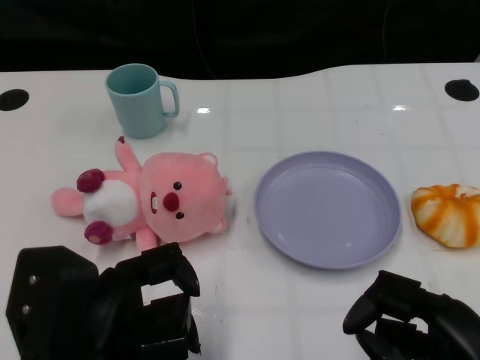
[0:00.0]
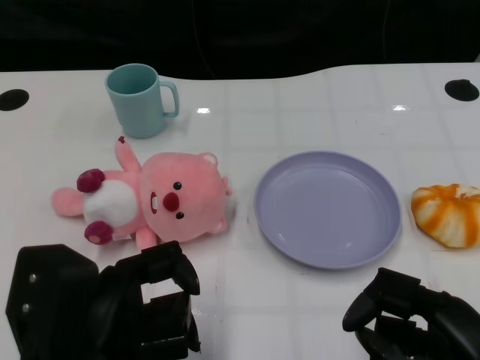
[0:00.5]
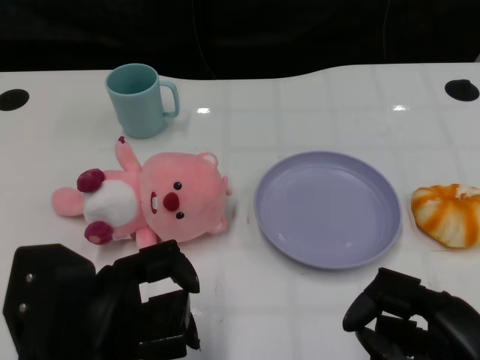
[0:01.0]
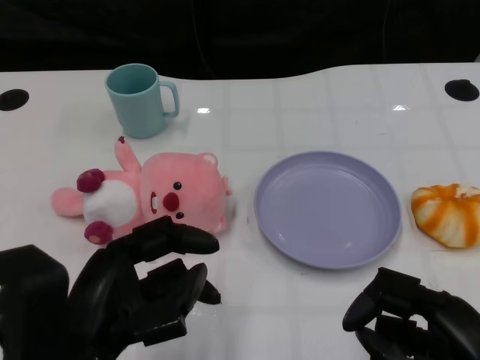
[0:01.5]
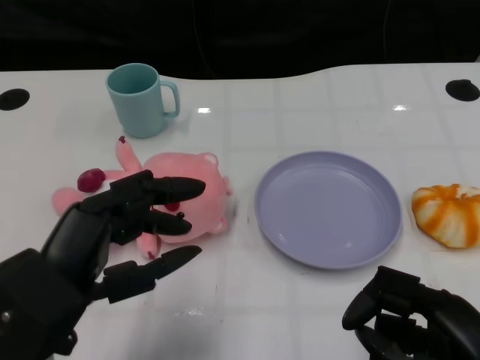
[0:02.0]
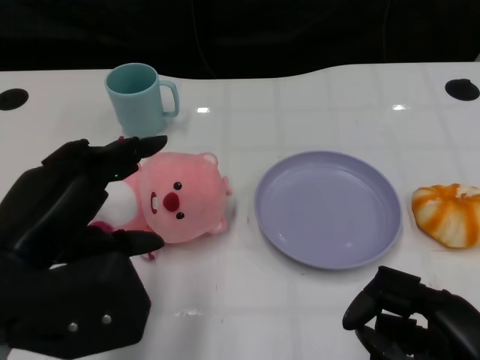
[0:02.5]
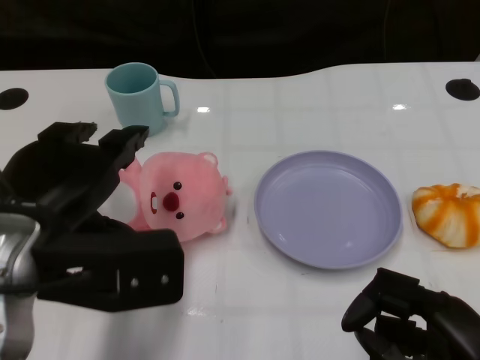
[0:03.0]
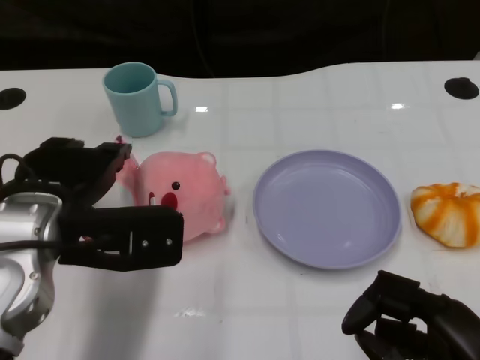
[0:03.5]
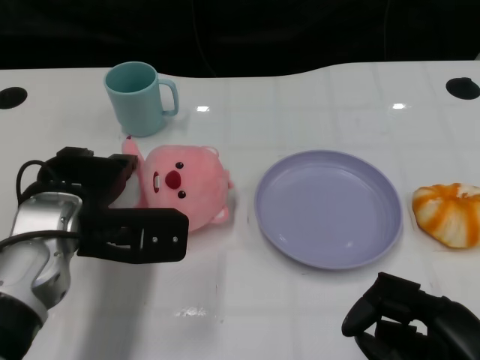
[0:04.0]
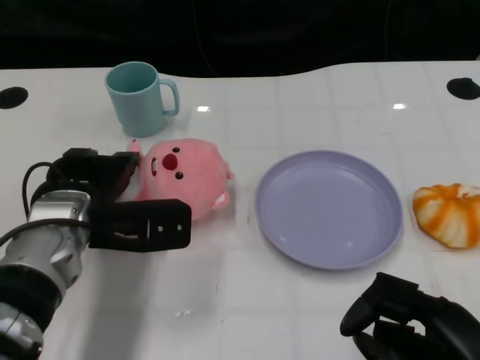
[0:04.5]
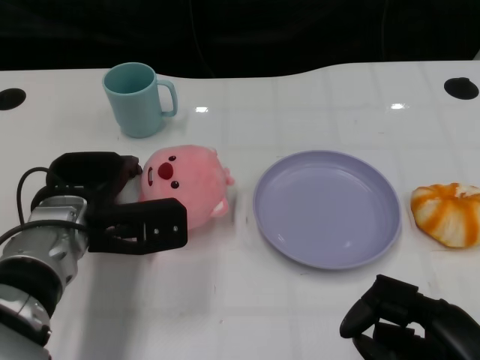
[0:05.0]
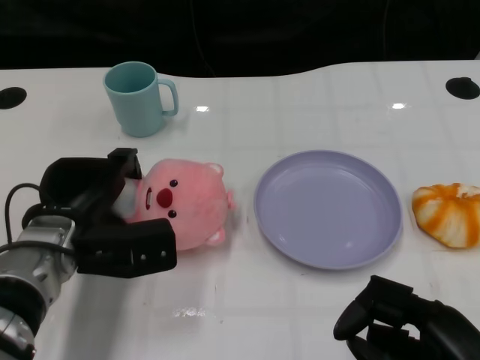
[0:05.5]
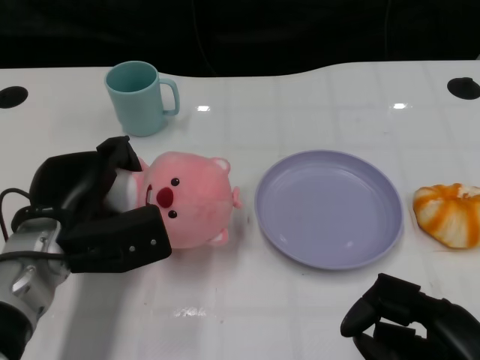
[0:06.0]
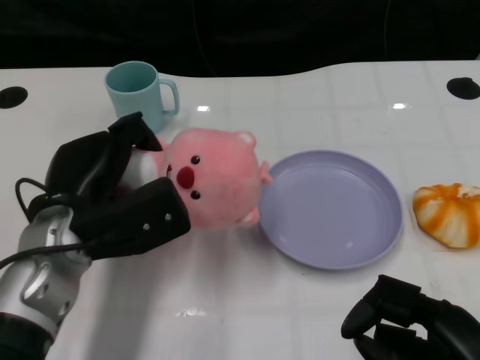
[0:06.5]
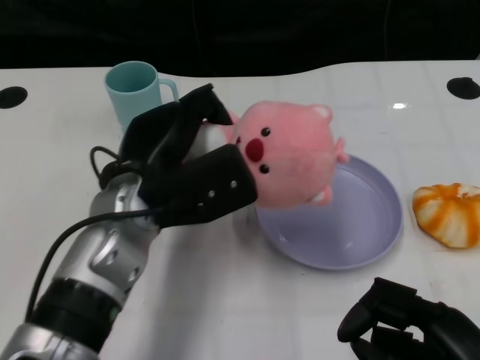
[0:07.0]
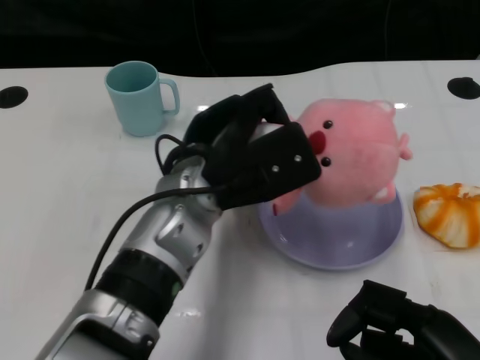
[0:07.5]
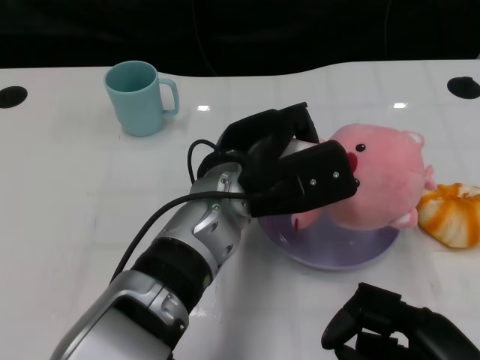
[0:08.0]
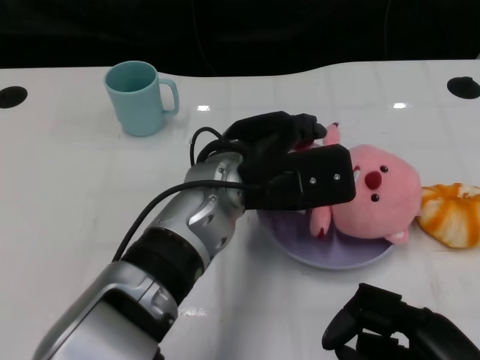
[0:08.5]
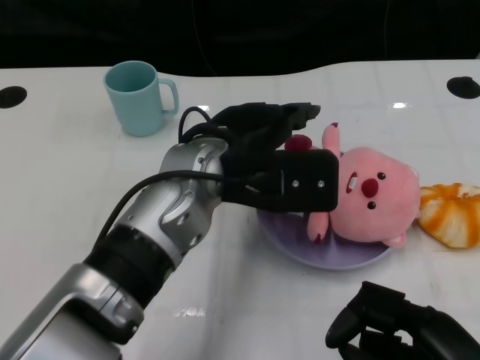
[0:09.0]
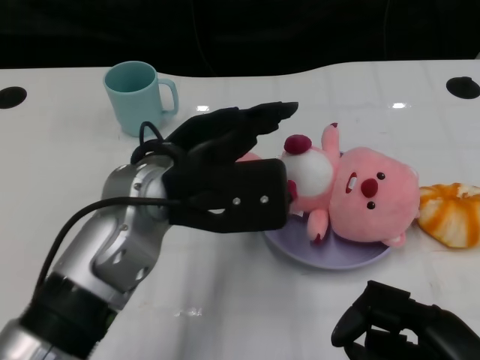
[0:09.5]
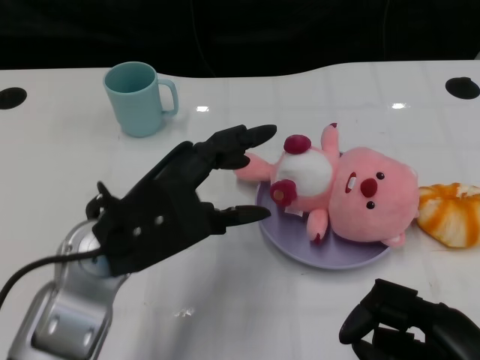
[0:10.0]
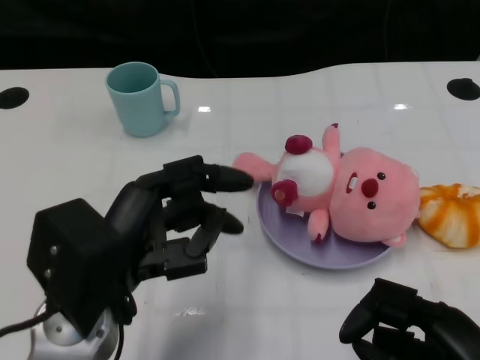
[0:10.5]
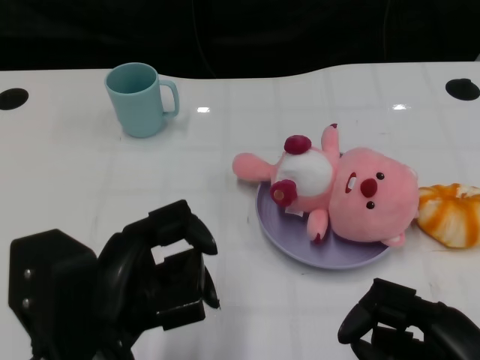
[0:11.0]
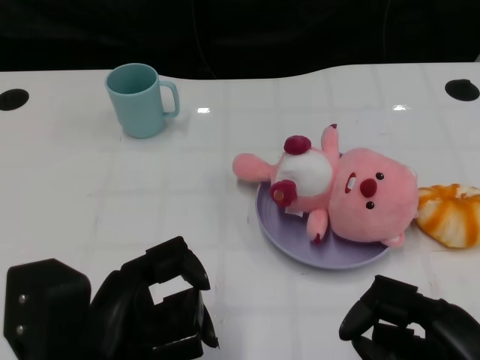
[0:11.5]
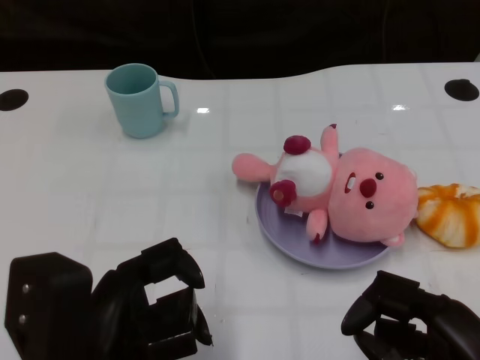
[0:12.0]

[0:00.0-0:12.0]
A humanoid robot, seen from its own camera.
Task of the whole recording: Pick up the doll on one side of the plate and place it into the plate.
Step, 0:01.0 to 0:05.5: Grasp the pink doll with the left gripper.
Step, 0:06.0 to 0:09.0: Place the pink doll into the plate with the left gripper.
0:02.0 to 0:04.0: The left hand shifts about 15 cm forward.
0:06.0 to 0:08.0: The left hand goes roughly 20 cm to the right.
0:08.0 to 0:10.0: The left hand moves to the left and backward, roughly 15 cm.
0:10.0 to 0:12.0: The left hand goes about 10 cm backward.

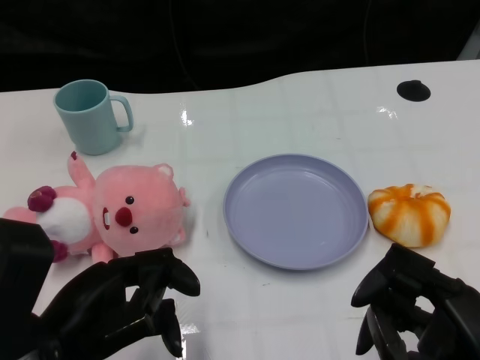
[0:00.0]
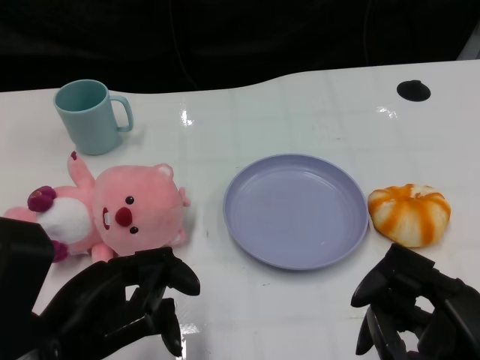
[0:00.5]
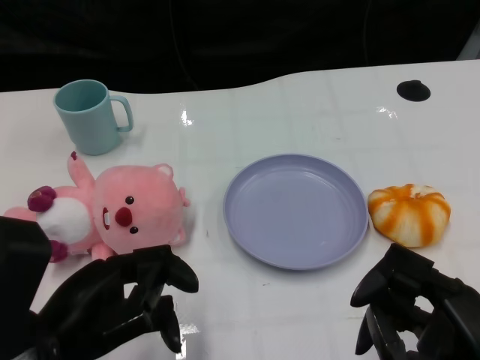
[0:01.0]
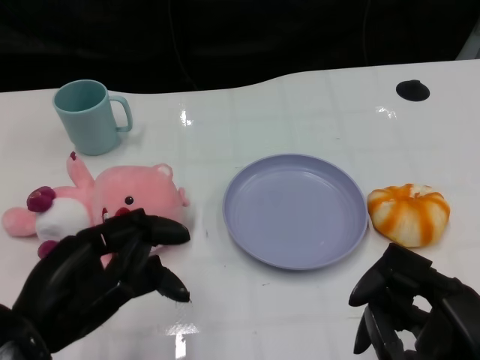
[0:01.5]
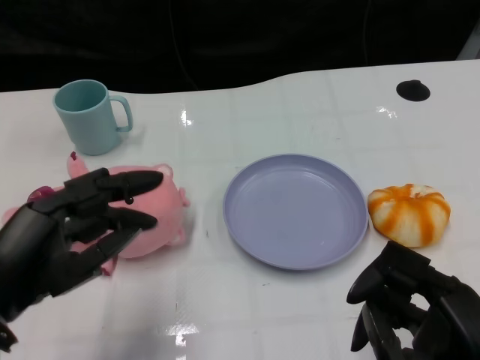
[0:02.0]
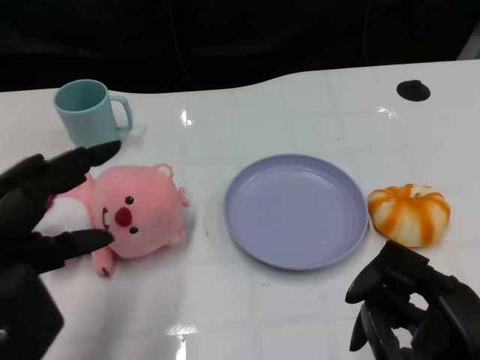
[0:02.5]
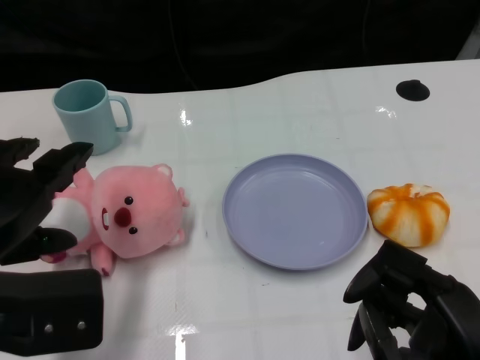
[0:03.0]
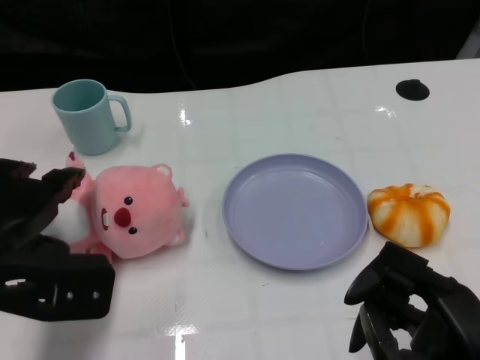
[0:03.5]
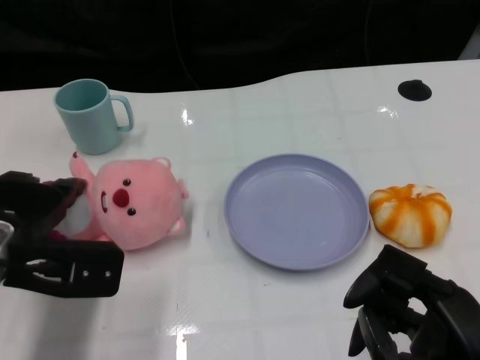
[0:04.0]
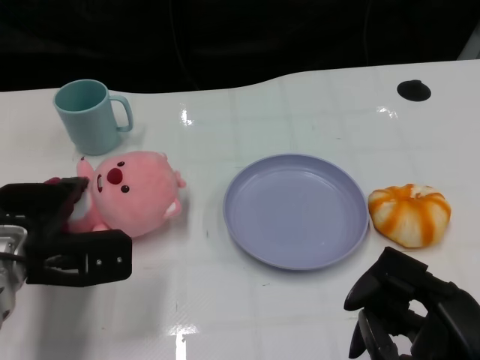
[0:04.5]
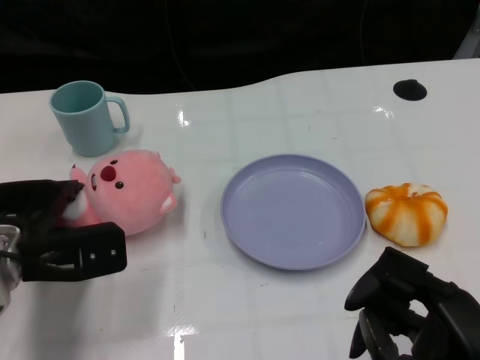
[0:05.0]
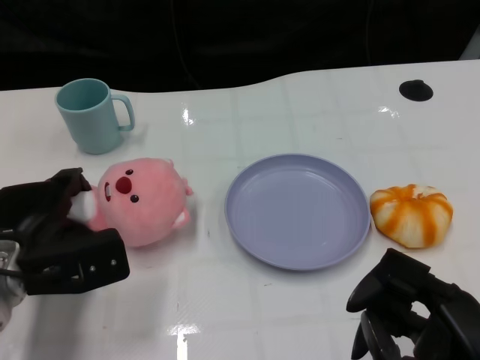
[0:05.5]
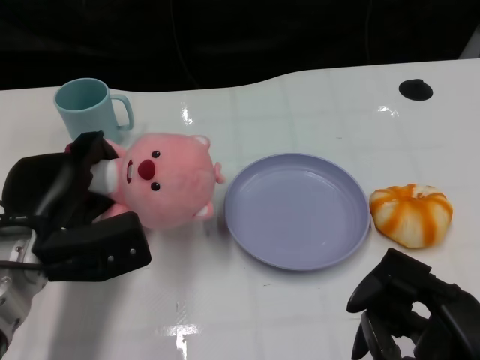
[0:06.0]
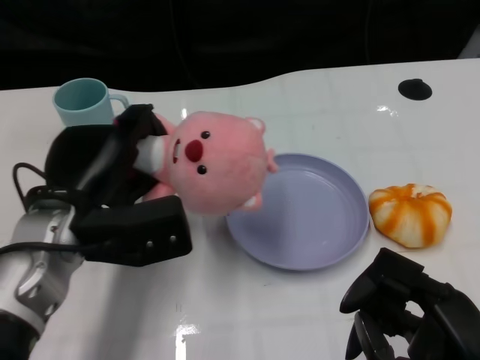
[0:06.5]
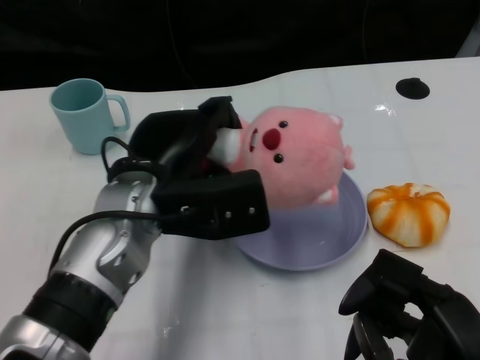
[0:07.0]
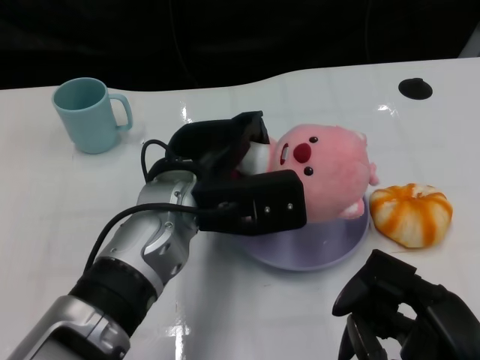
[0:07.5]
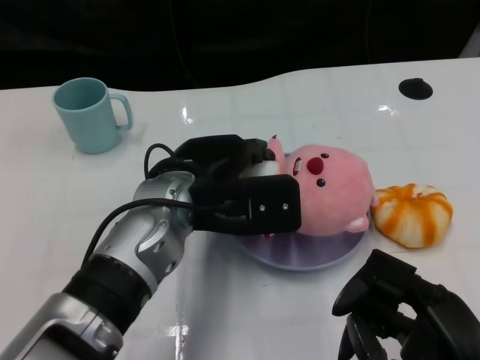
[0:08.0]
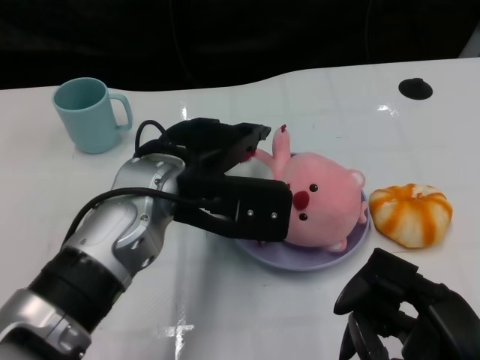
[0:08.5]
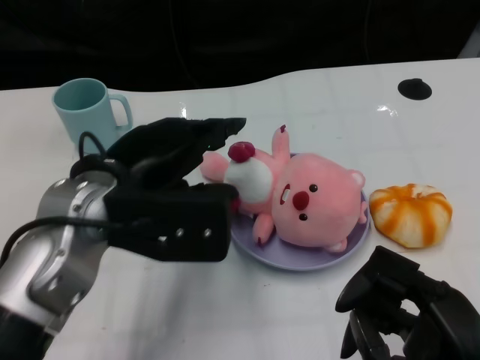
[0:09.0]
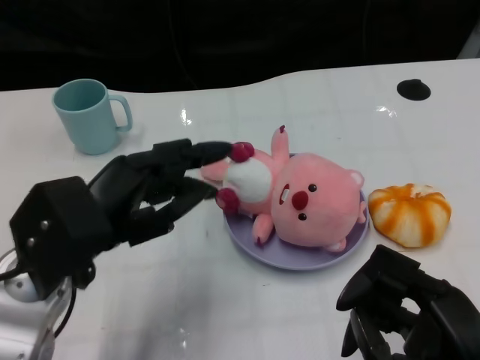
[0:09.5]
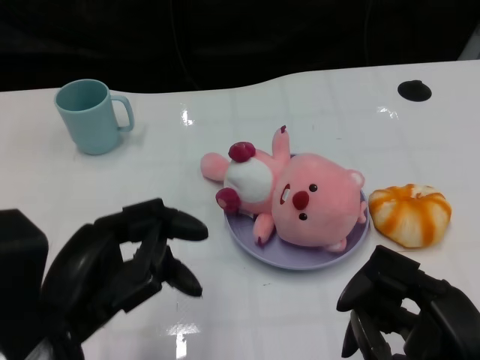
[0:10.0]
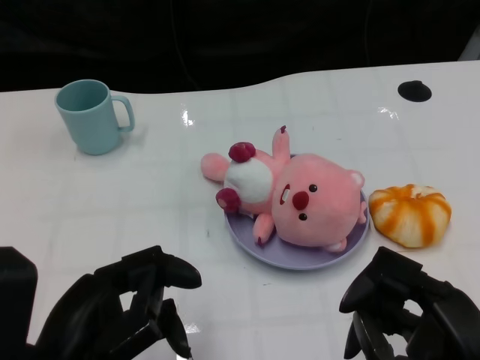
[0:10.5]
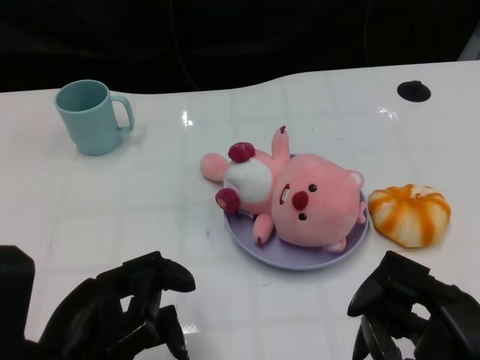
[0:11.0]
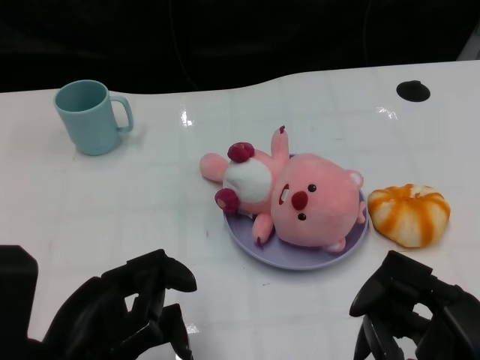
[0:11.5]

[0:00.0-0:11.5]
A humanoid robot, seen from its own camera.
Task of the whole recording: Pick up the doll on one side of the plate and place it into the plate.
Step, 0:01.0 to 0:05.5: Grasp the pink doll with the left gripper.
Step, 0:06.0 to 0:08.5: Place the pink doll into the plate with the left gripper.
0:02.0 to 0:04.0: The left hand goes some 10 cm forward.
0:06.0 to 0:07.5: The left hand is displaced to the right by roughly 15 cm.
0:07.5 to 0:09.5: The left hand is displaced to the left and backward by approximately 15 cm.
0:09.5 to 0:11.5: The left hand heads backward, covering some 10 cm.

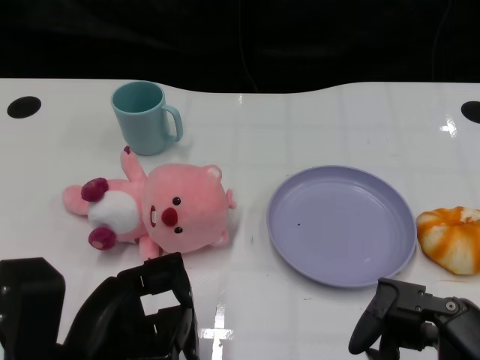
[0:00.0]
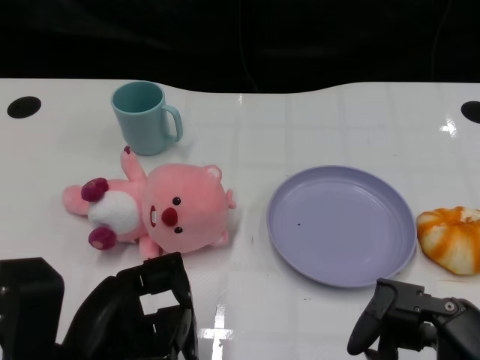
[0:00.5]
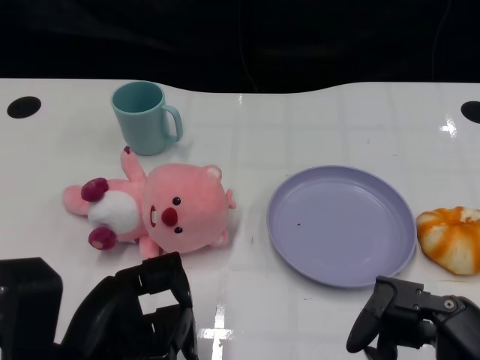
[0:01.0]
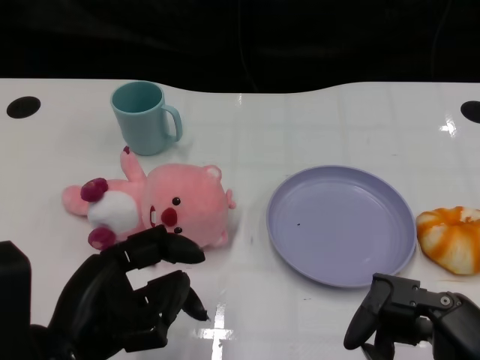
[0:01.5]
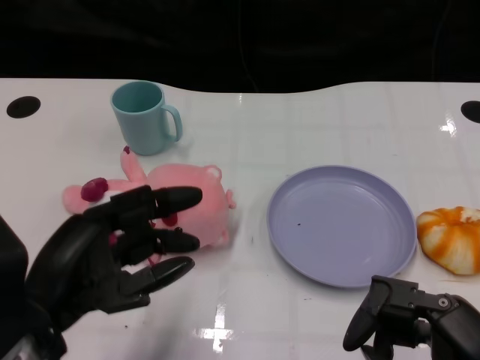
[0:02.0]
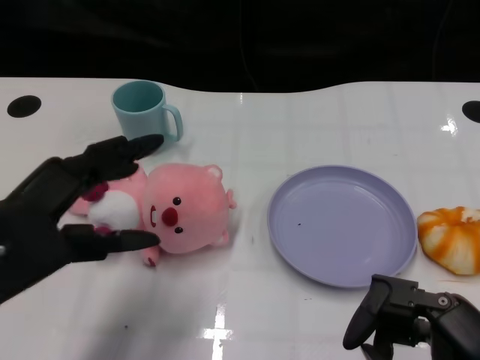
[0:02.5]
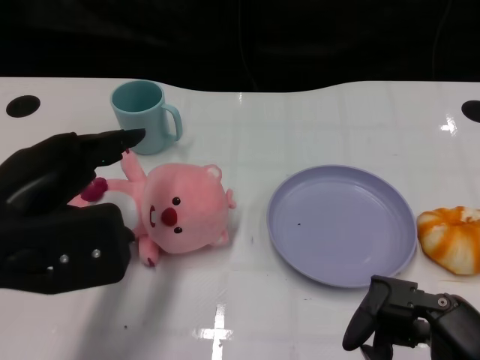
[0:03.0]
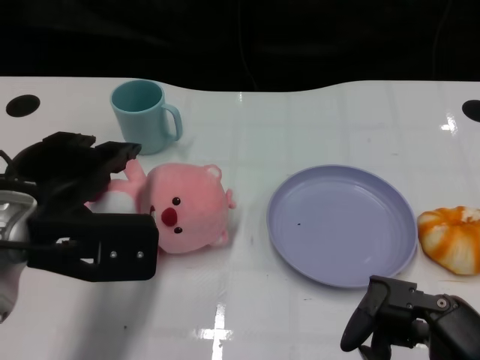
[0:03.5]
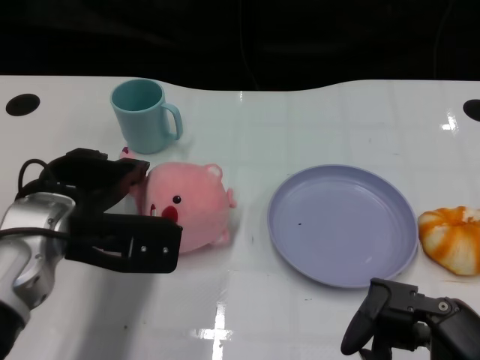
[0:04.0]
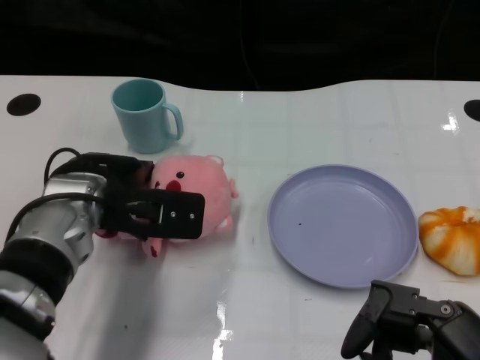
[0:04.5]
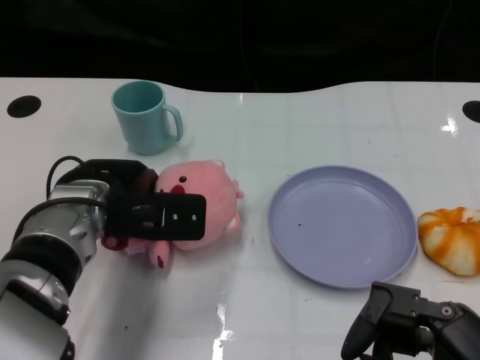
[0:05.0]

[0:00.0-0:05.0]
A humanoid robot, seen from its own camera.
Task of the whole recording: Pick up the doll on one side of the plate and place it into the plate.
0:02.5 to 0:05.0: The left hand moves forward, to the right and downward, about 15 cm.
